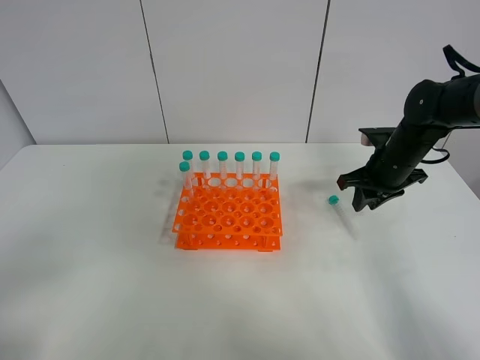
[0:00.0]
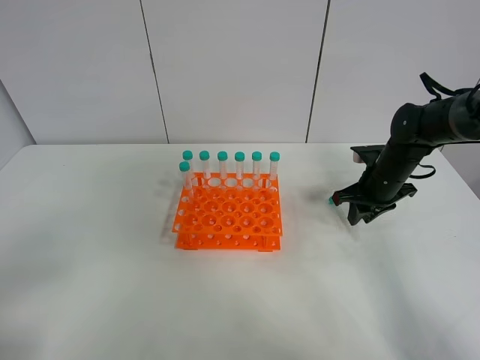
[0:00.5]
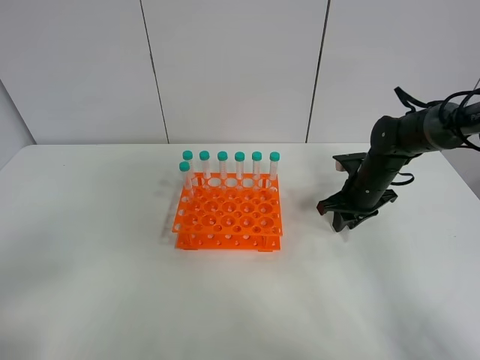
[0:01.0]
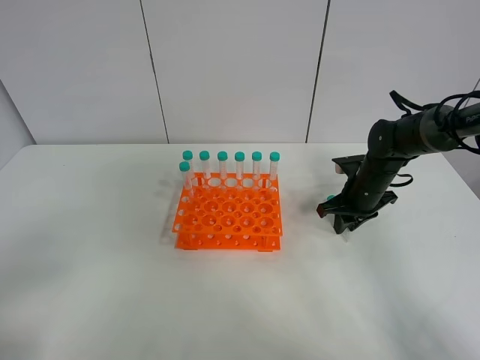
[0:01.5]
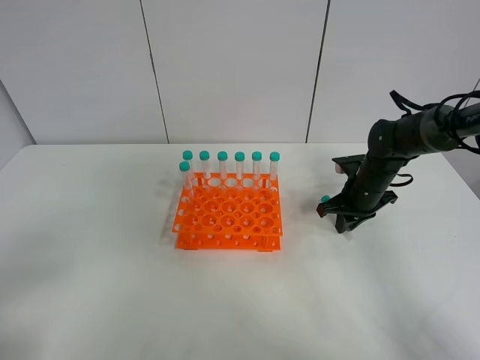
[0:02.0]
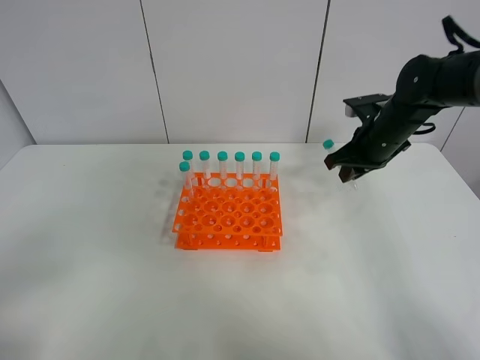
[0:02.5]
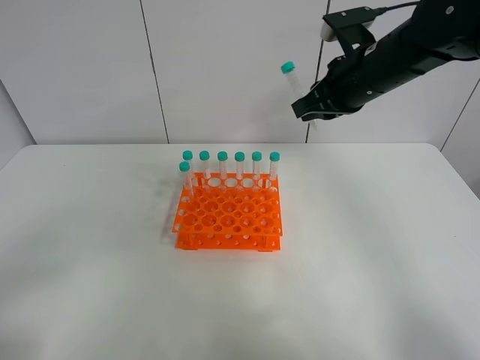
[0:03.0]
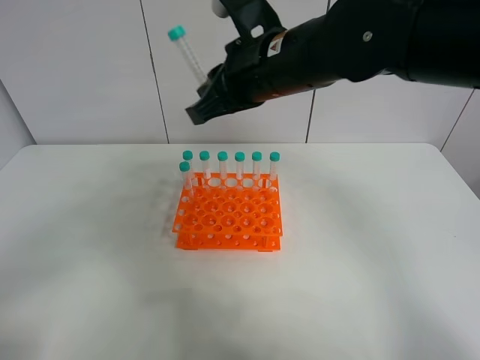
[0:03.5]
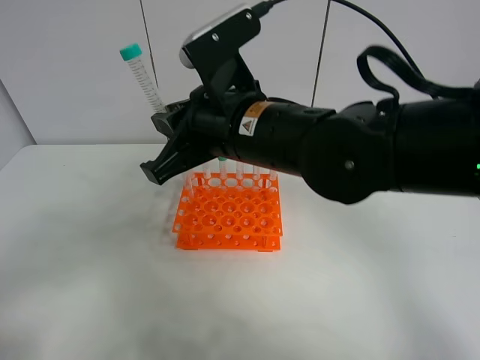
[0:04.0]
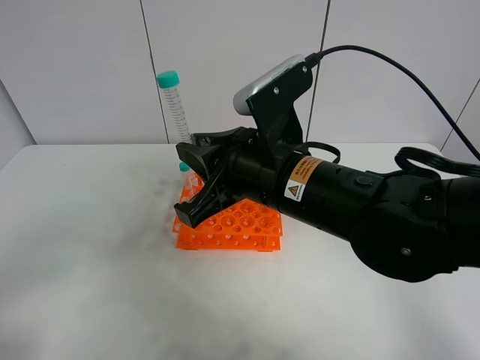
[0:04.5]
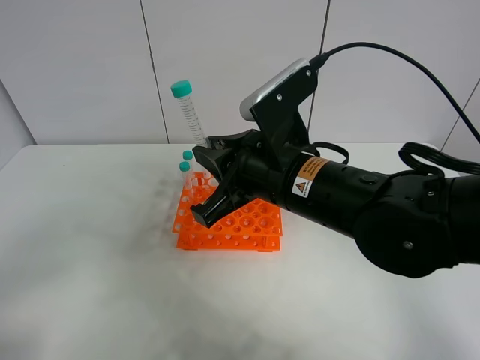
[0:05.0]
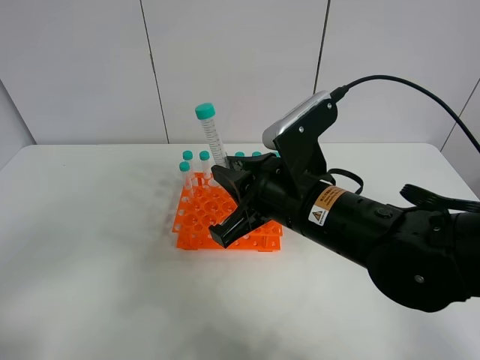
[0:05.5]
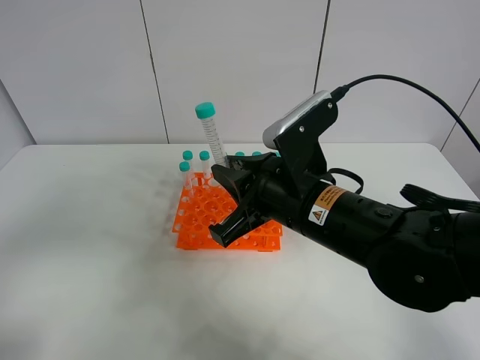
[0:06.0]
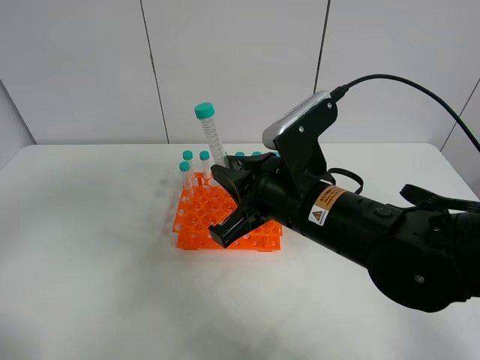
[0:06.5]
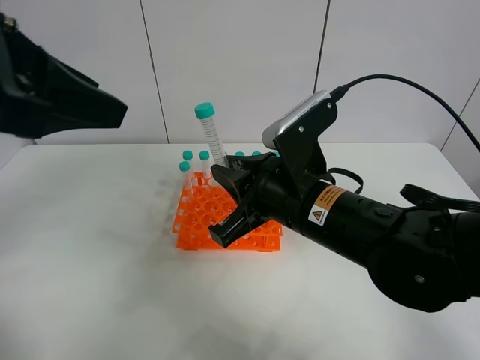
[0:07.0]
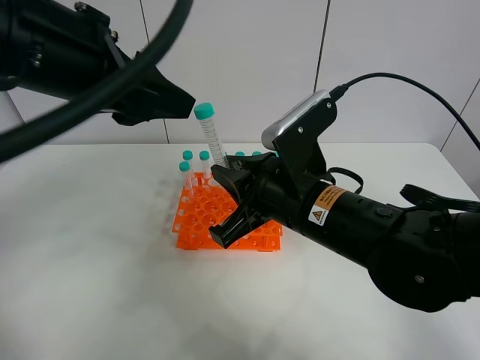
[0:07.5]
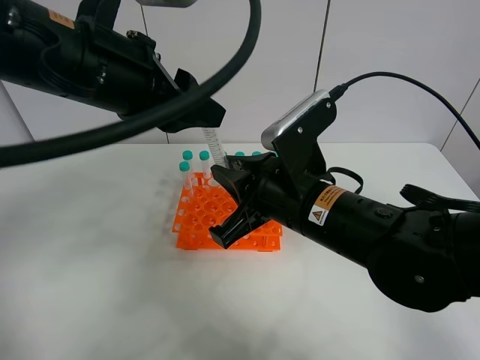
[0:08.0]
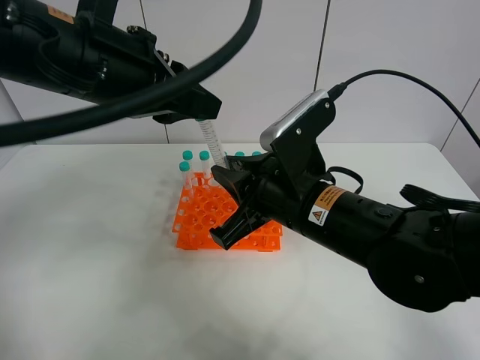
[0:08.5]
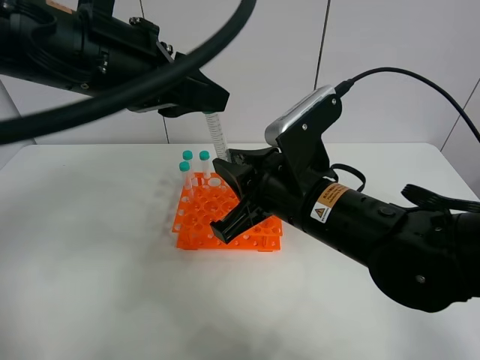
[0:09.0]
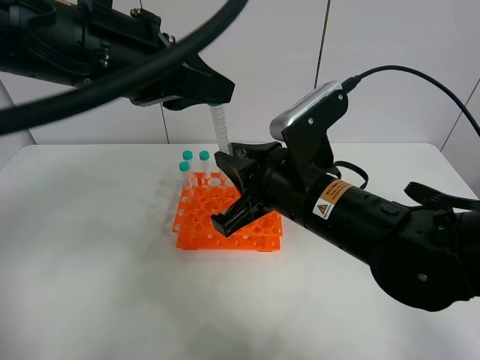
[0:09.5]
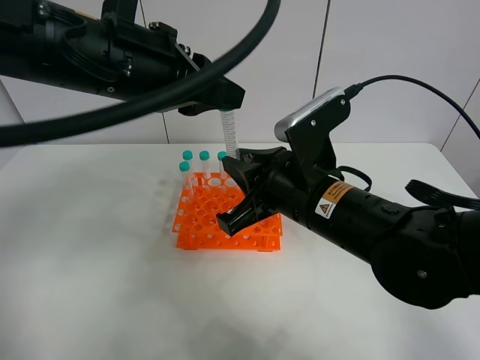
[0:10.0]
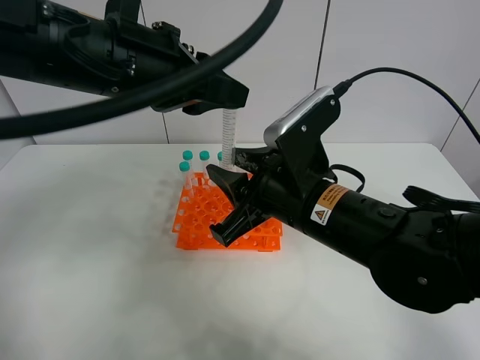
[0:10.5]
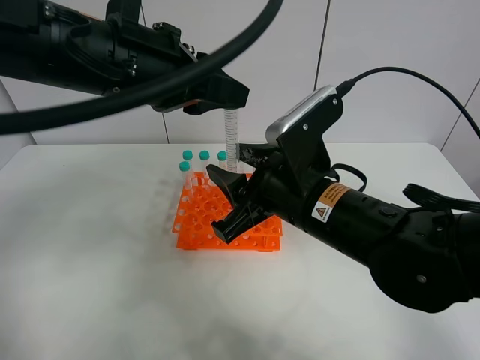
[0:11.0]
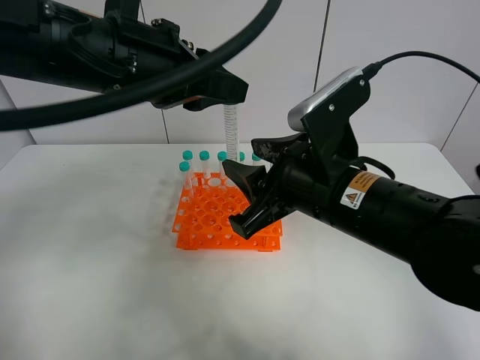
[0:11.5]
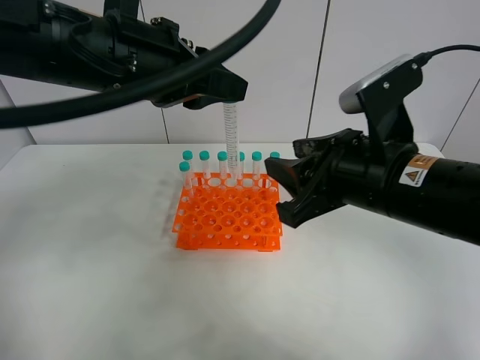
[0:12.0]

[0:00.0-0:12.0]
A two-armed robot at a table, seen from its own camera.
Task of the whole recording: Put the test tube on the table back onto the test tube rack.
Step, 0:02.0 to 0:10.5: Move the test tube from the right gripper to the left gripper.
0:00.0 to 0:02.0: The right gripper heads downward, covering about 5 cm, and closes.
0:02.0 to 0:04.0: The right gripper goes about 35 cm to the left, upward and backward.
0:04.0 to 0:06.0: The right gripper is displaced downward and to the right by approximately 10 cm. The left gripper is displaced upward by roughly 5 cm.
0:06.0 to 0:08.0: The left gripper is displaced forward and to the right by approximately 25 cm.
0:08.0 to 0:10.0: The left gripper closes its fingers.
0:10.0 to 0:12.0: The right gripper is displaced to the right by roughly 5 cm, and opens.

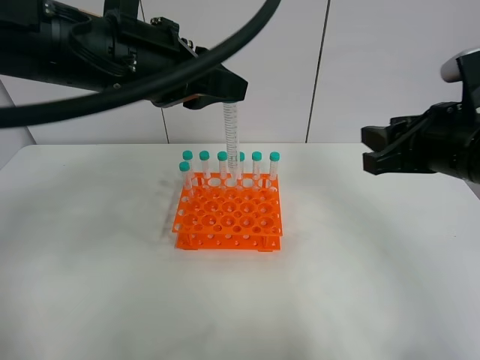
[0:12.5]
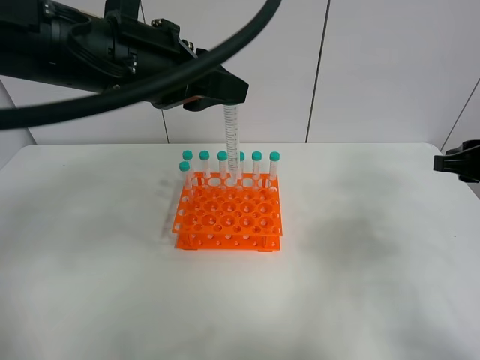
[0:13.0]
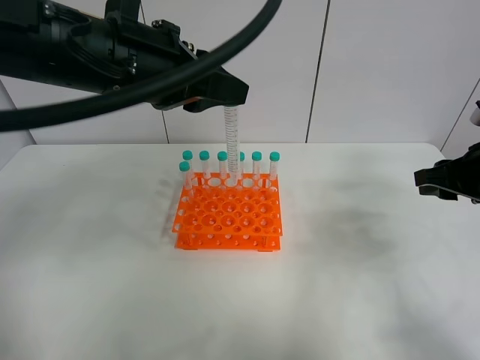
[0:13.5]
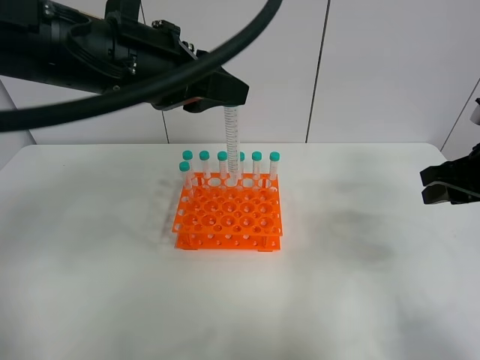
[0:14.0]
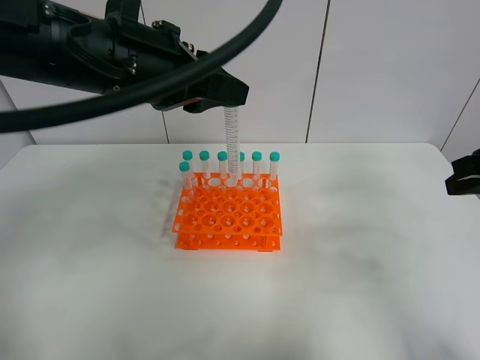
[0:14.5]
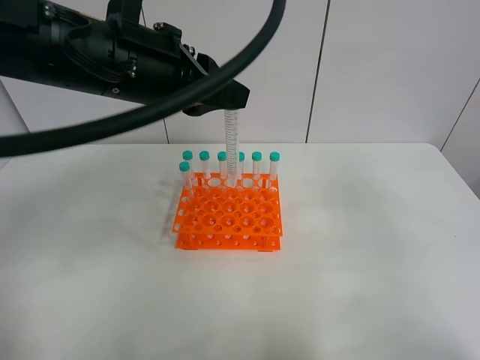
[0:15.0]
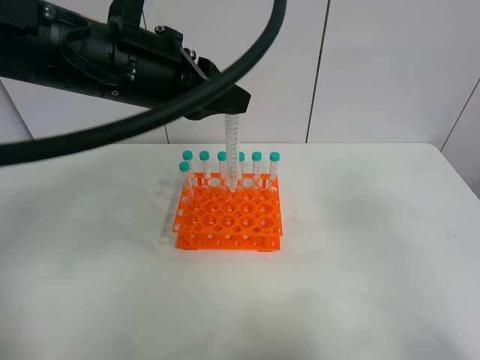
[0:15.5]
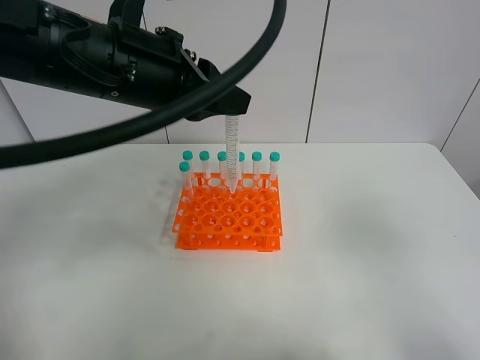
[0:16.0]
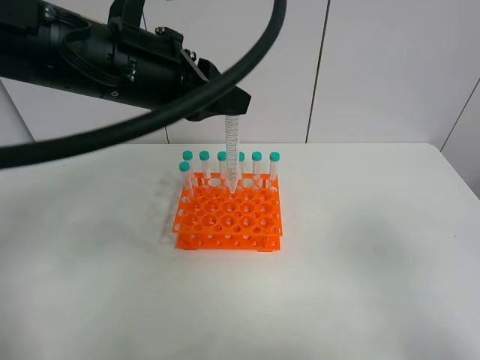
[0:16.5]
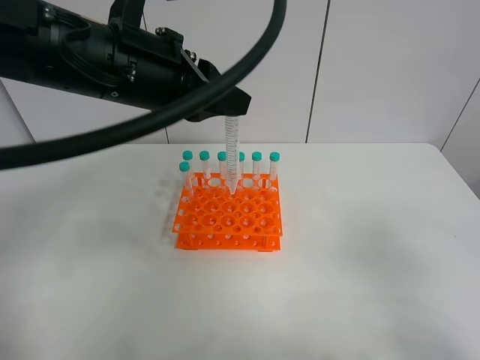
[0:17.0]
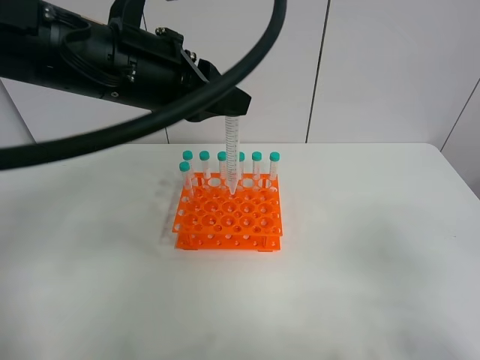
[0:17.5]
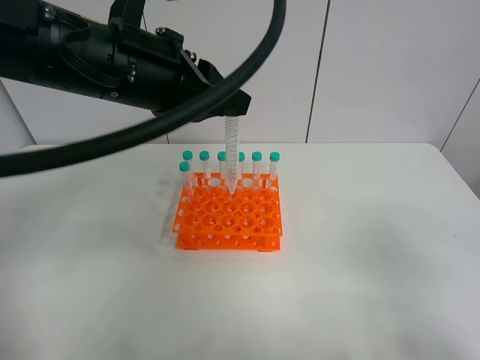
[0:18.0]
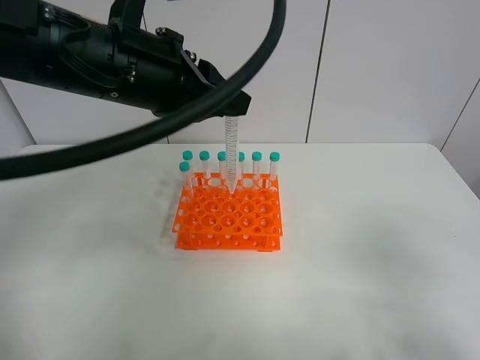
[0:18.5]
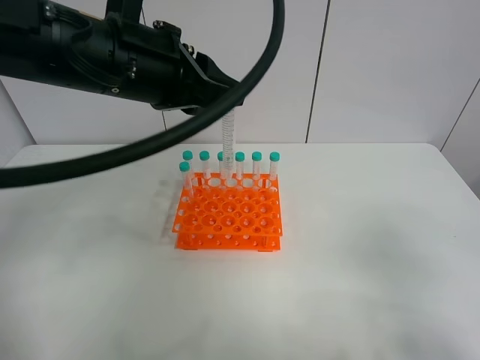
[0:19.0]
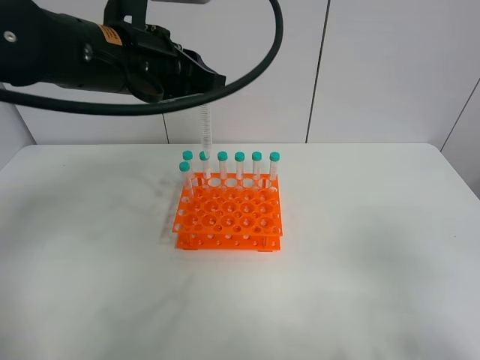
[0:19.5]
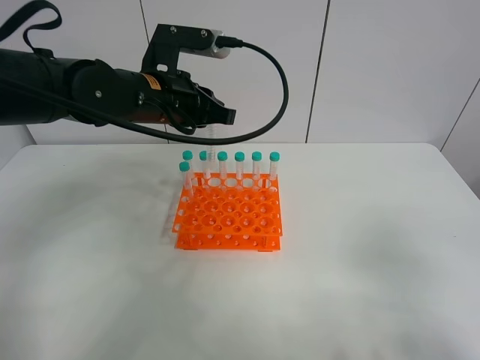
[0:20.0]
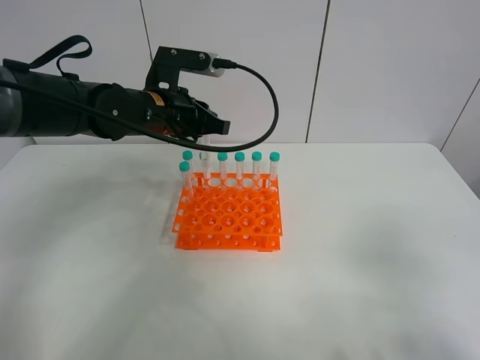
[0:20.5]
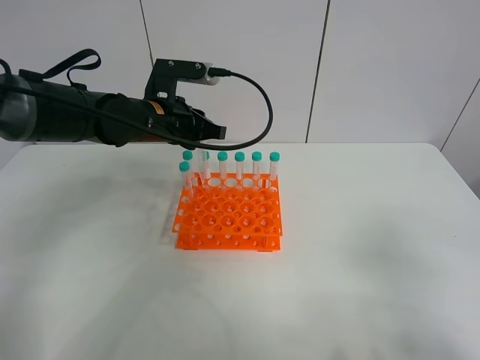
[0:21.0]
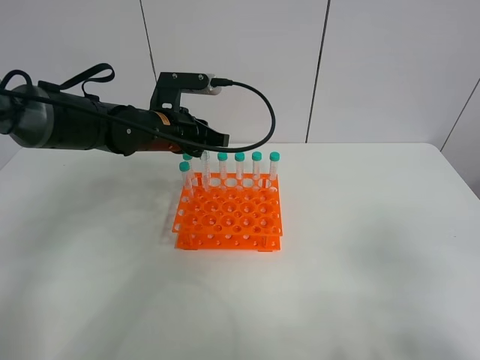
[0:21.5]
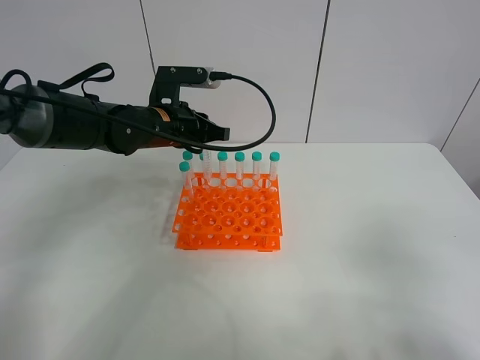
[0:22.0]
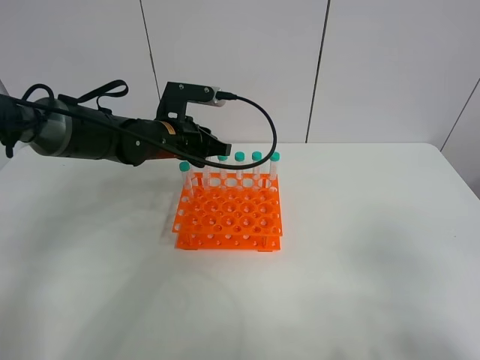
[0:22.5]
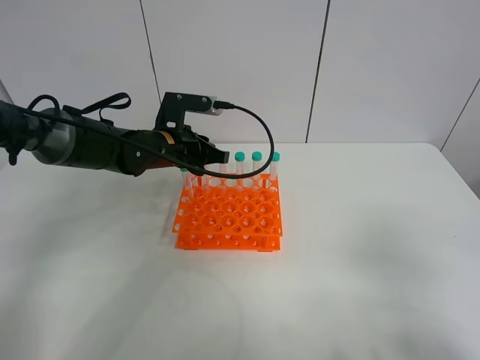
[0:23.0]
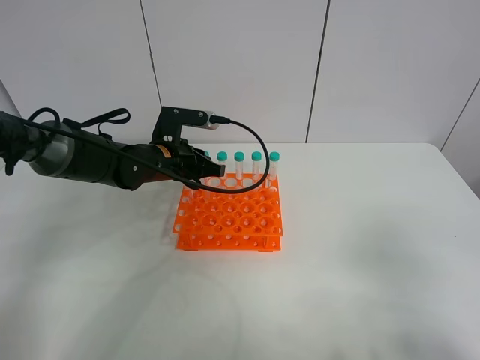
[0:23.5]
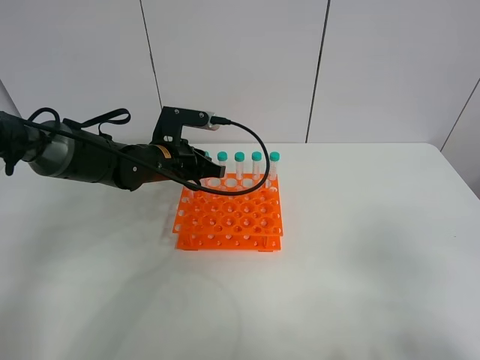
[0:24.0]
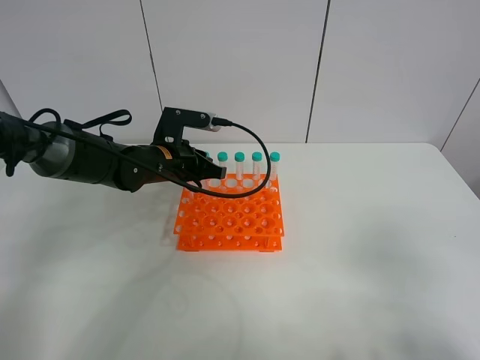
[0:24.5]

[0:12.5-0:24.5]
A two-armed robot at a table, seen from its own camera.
Task of the whole recording: Put the test tube on the table back onto the test tube rack.
0:12.5 to 0:14.5: The right gripper is displaced to the right by about 5 cm.
0:14.5 to 0:16.5: The right gripper goes some 20 cm backward.
0:16.5 to 0:18.5: The right gripper changes place by approximately 5 cm.
0:18.5 to 0:20.5: The left gripper shifts some 15 cm forward and downward.
0:20.5 to 0:22.5: The left gripper shifts roughly 5 cm downward.
0:22.5 to 0:24.5: The grippers move only a little.

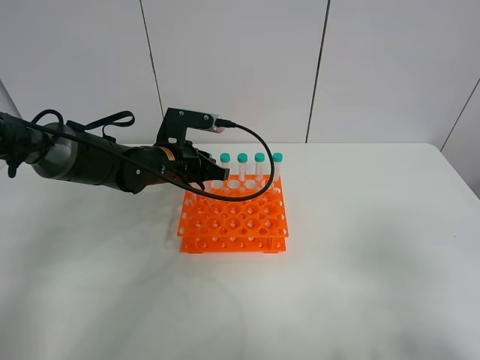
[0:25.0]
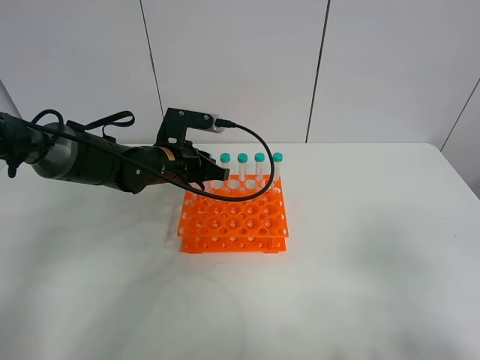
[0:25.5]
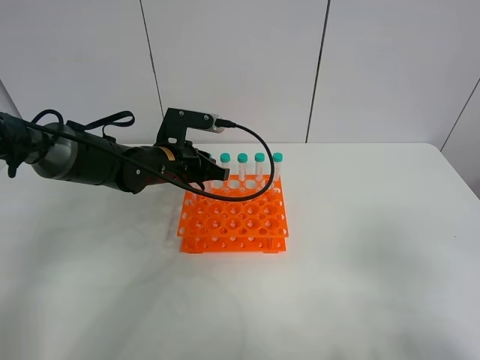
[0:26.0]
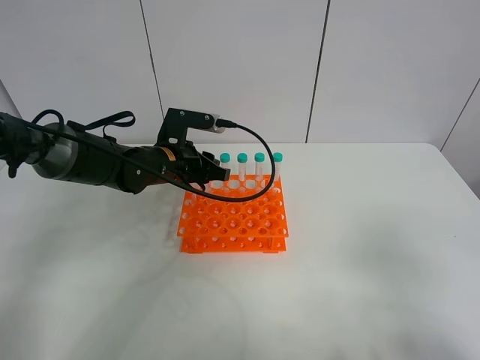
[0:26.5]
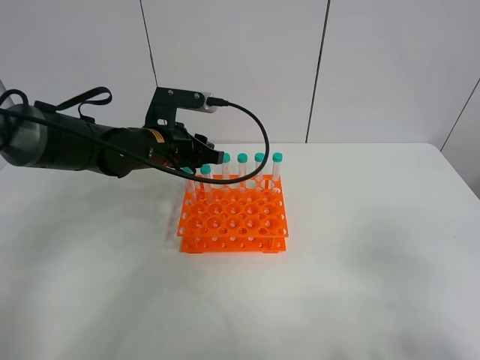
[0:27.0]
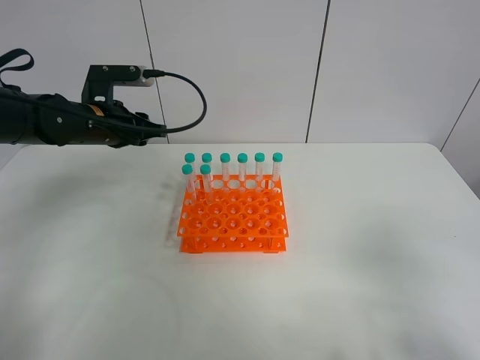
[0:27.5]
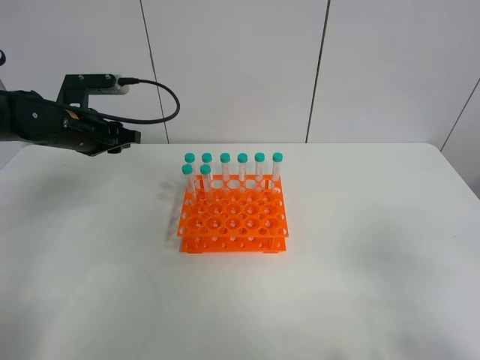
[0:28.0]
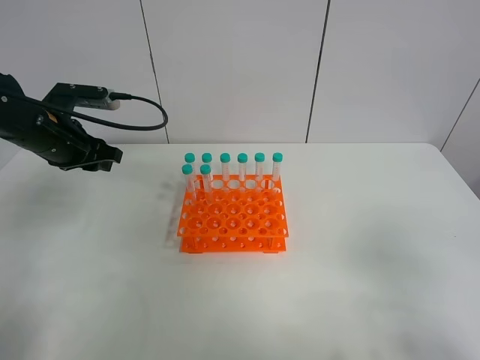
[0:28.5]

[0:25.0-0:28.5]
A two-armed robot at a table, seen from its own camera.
Task of the whole recording: Put the test tube on the table back onto the test tube rack.
0:25.0 to 0:27.0: The left gripper opens up.
0:27.0 to 0:28.5: The left gripper is displaced to the left by some 15 cm.
